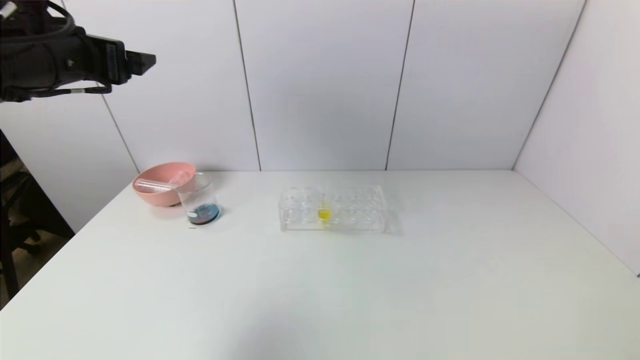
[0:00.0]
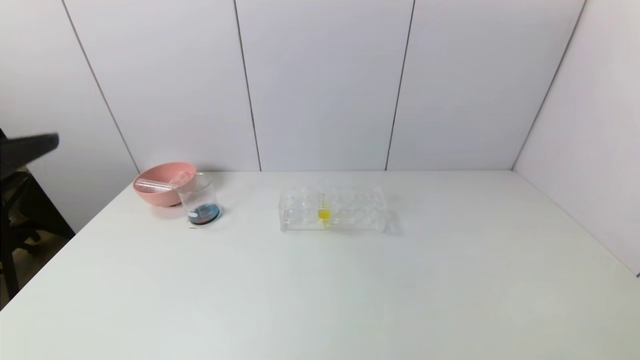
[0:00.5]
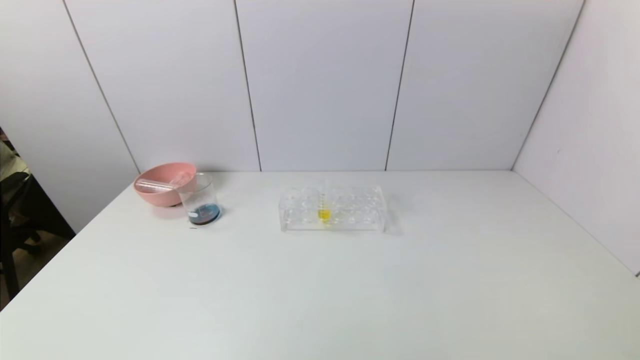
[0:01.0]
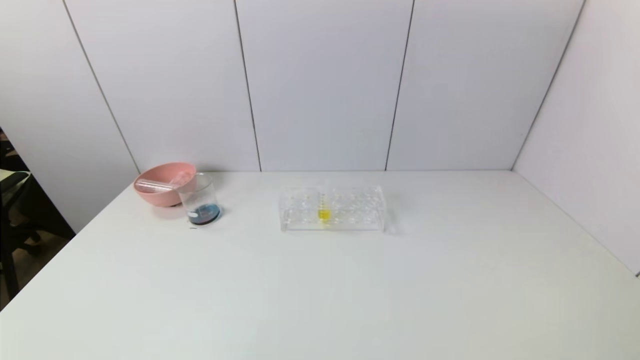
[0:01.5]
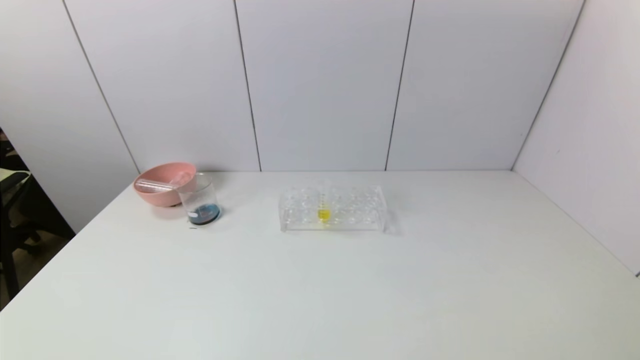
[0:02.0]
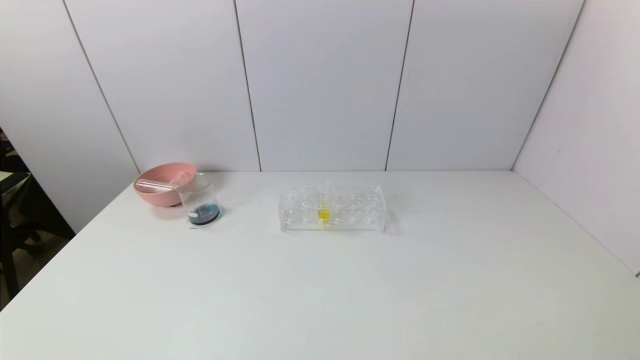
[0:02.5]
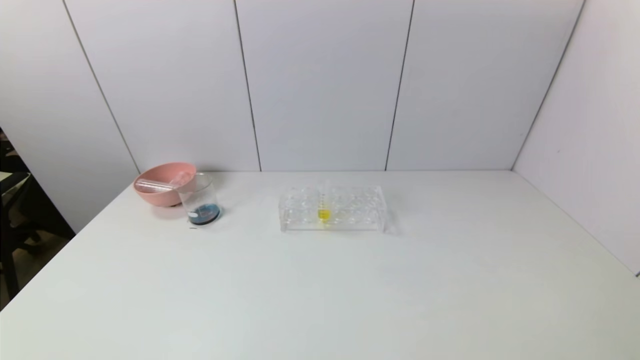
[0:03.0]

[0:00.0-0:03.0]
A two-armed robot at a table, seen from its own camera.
Task of the whole recording: pick up the test tube with red pigment and the test tube with blue pigment by grippers and pour them into the container.
0:00.0 to 0:01.5: The left gripper shifts about 40 cm backward and downward.
